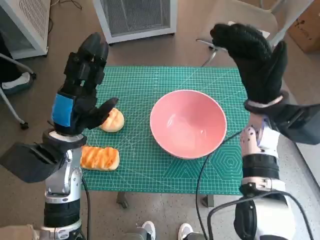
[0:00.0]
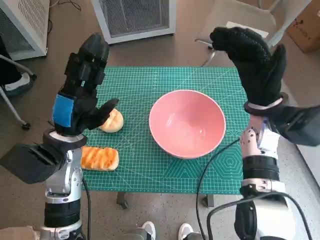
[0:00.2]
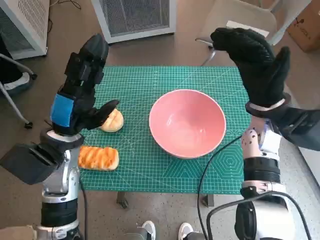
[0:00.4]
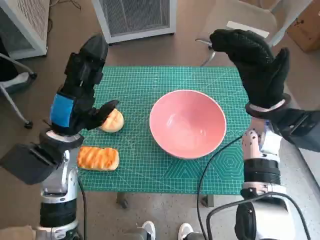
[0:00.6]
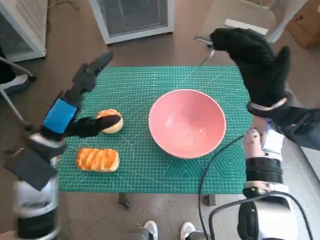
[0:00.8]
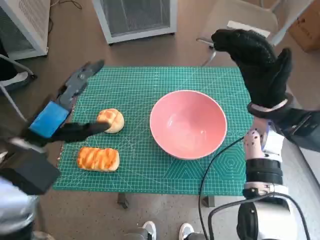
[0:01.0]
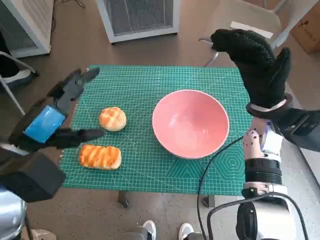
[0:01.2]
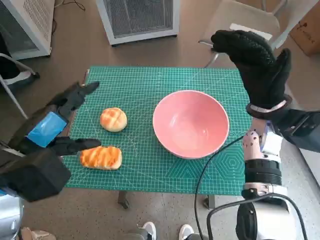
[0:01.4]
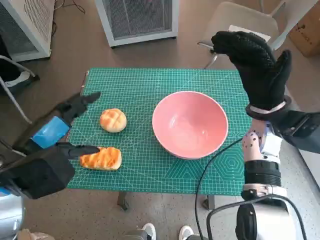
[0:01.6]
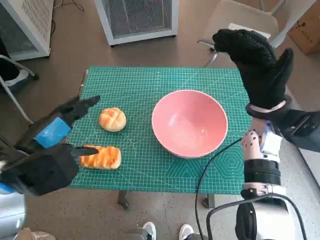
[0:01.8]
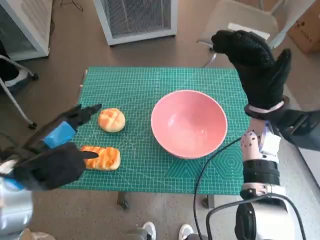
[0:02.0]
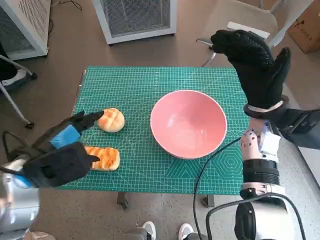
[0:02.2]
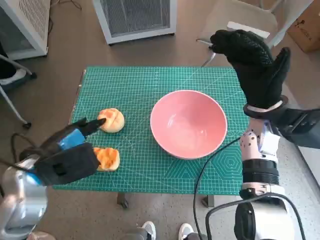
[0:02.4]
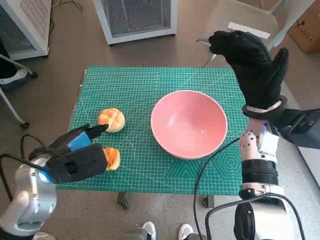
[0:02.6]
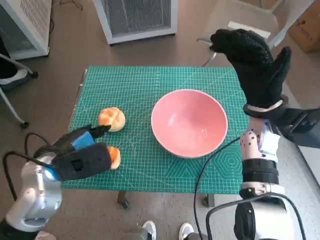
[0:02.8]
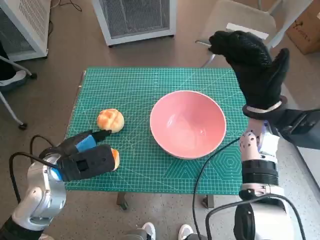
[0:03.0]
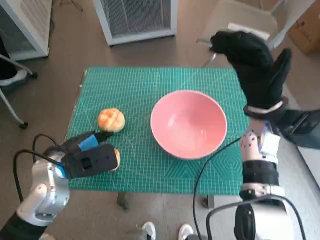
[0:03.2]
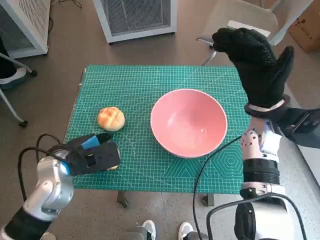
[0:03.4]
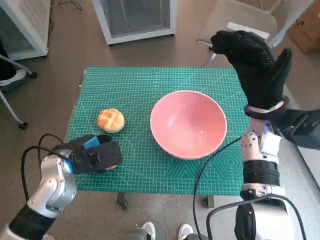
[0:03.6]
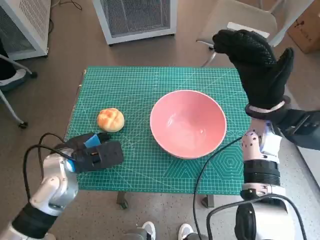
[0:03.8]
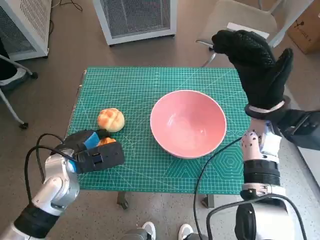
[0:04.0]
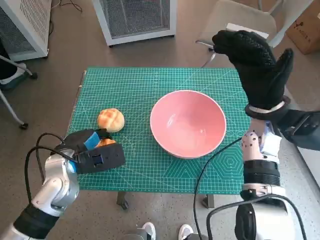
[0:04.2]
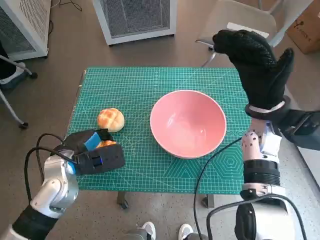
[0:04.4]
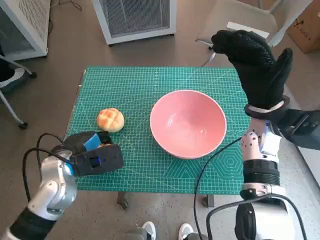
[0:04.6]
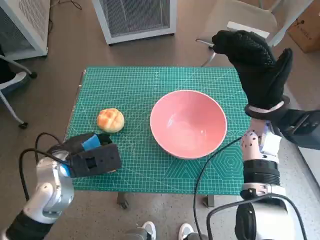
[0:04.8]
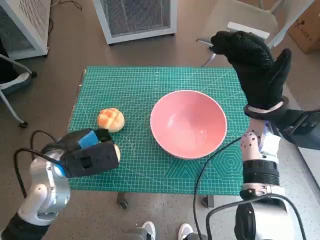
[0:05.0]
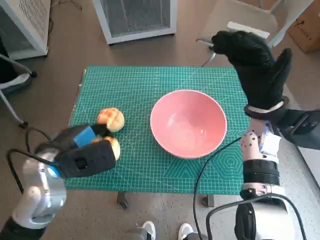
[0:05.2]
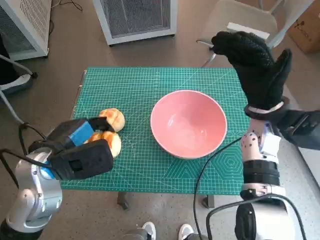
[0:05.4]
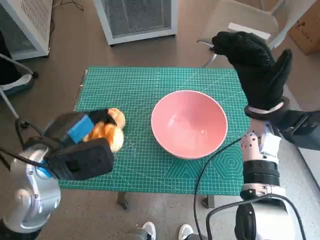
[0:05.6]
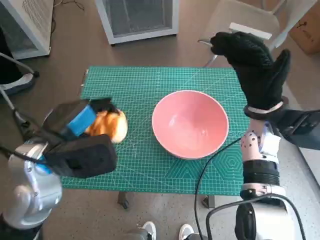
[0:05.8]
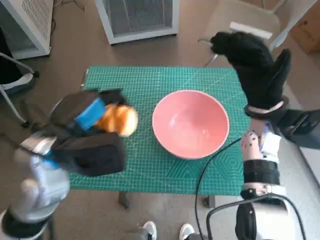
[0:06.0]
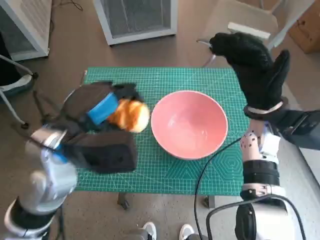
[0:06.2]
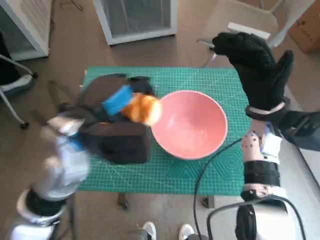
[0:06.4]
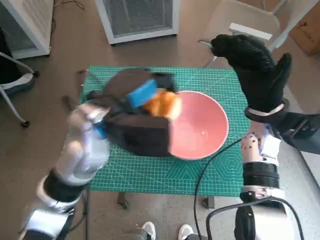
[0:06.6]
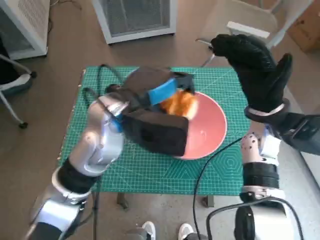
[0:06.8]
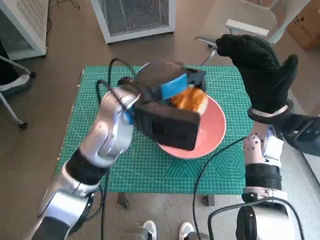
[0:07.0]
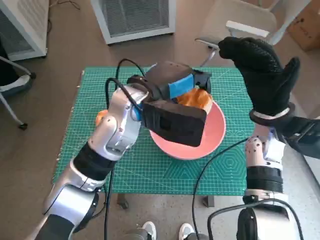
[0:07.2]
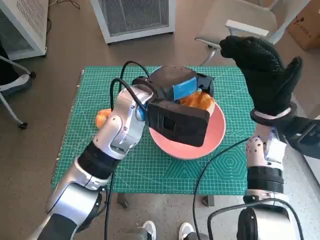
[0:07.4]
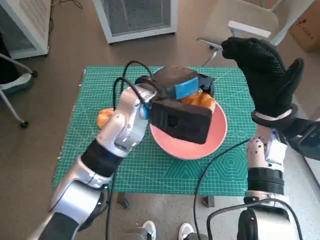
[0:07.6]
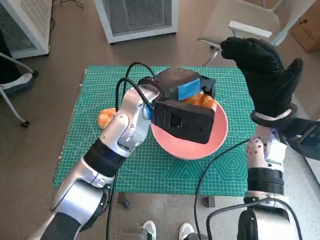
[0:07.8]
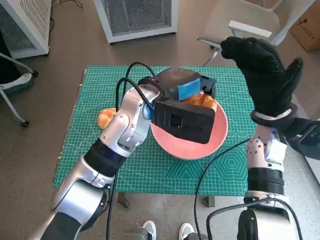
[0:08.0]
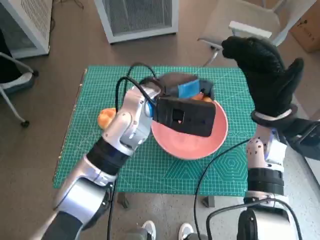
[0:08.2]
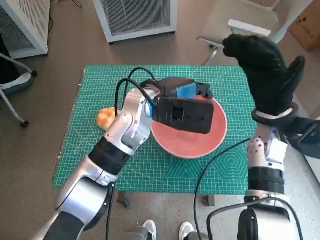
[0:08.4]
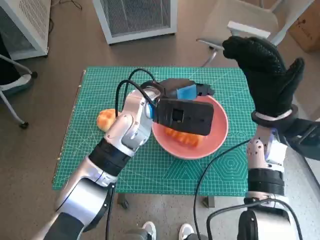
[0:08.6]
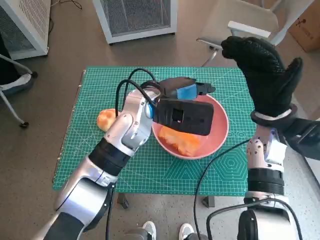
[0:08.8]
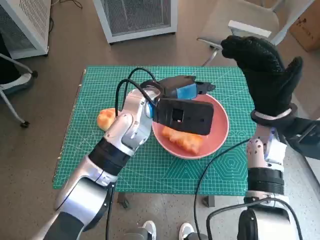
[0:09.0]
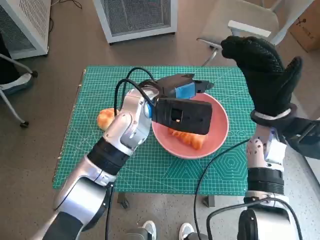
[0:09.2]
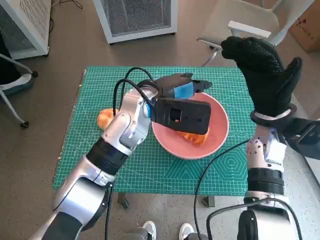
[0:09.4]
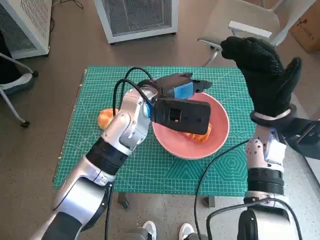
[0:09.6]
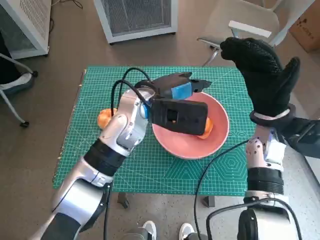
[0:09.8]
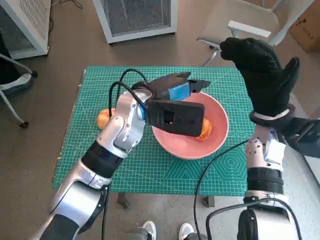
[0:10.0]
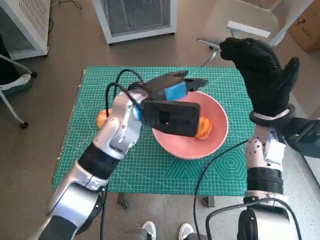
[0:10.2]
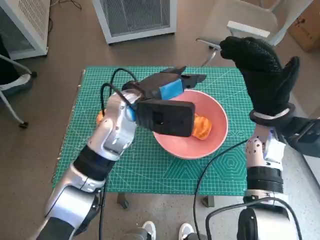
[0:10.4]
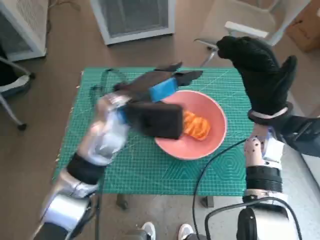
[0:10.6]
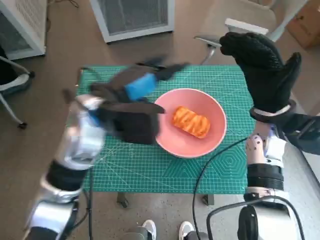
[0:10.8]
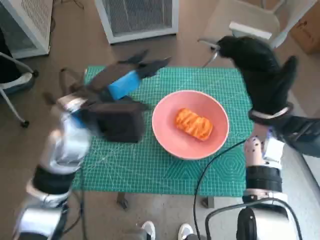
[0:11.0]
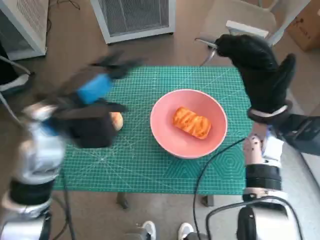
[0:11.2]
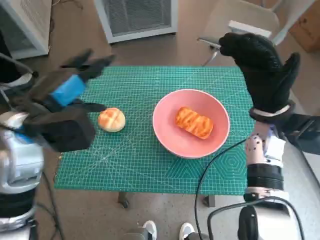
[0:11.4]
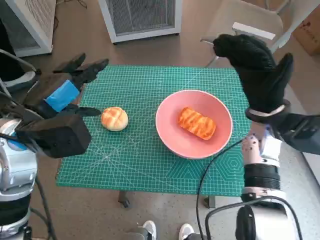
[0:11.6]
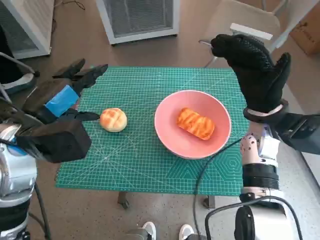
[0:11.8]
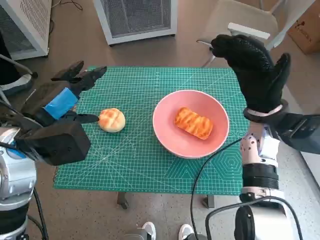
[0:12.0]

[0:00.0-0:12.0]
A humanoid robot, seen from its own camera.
Step, 0:00.0 to 0:04.2: Grasp the long bread with left hand.
Step, 0:04.4 to 0:08.6: Place the long bread in pink bowl with left hand.
0:00.0 to 0:01.6: The left hand shifts some 10 cm backward and upward.
0:01.6 to 0:03.0: The left hand heads downward, covering roughly 10 cm.
0:03.0 to 0:04.4: There are only small adjustments of the hands.
0:04.4 to 0:06.0: The left hand travels upward by some 10 cm.
0:06.0 to 0:07.6: The left hand shifts roughly 15 cm to the right and forward.
0:07.6 to 0:10.4: There are only small adjustments of the hands.
0:10.4 to 0:12.0: The left hand is displaced to the left and backward by roughly 20 cm.

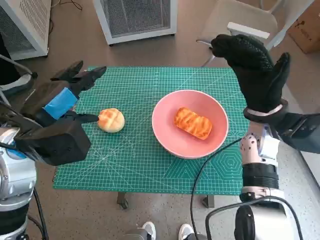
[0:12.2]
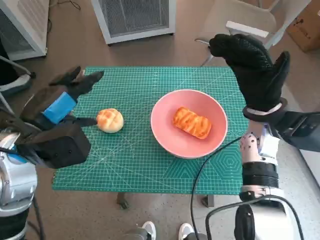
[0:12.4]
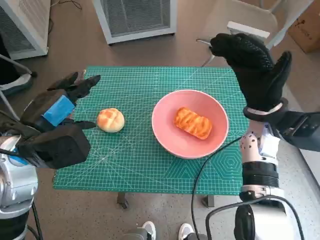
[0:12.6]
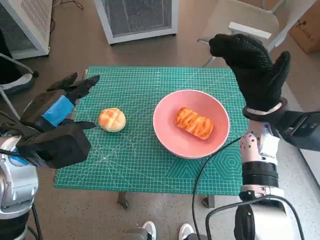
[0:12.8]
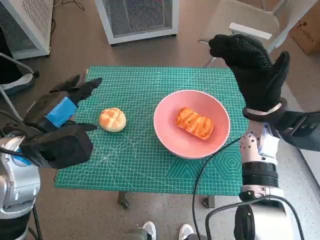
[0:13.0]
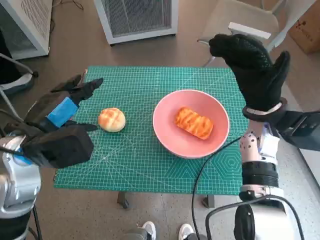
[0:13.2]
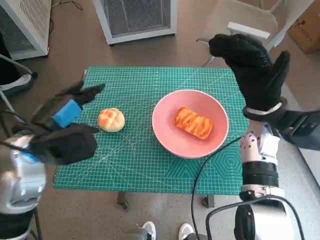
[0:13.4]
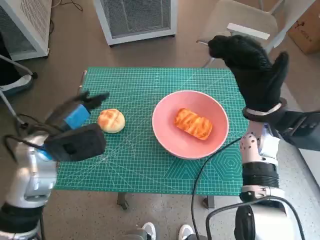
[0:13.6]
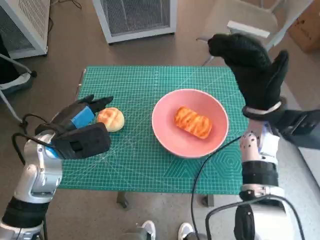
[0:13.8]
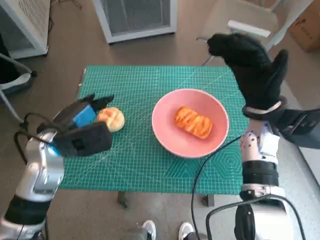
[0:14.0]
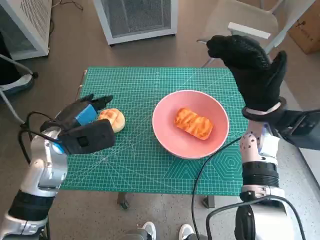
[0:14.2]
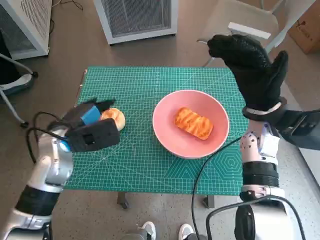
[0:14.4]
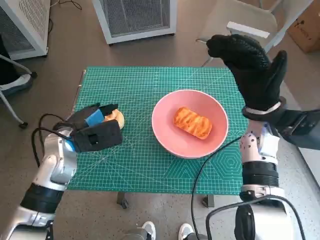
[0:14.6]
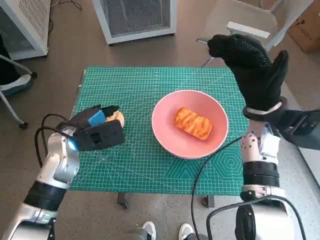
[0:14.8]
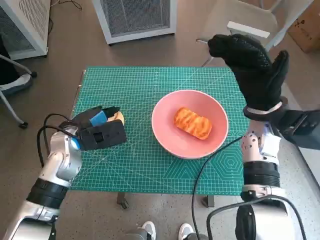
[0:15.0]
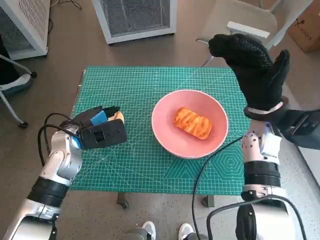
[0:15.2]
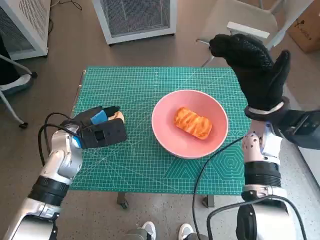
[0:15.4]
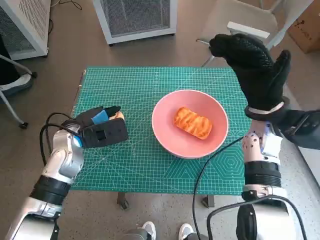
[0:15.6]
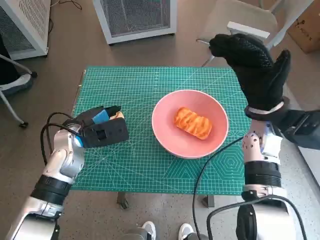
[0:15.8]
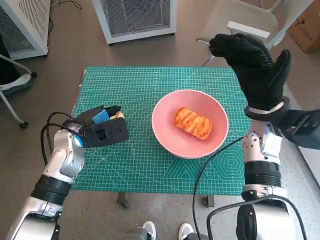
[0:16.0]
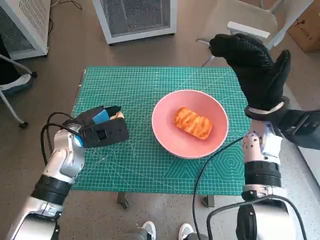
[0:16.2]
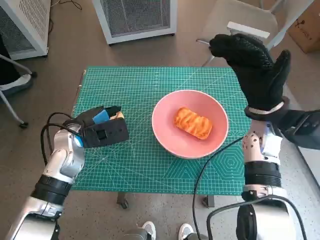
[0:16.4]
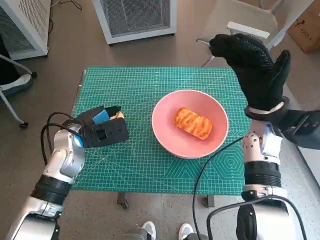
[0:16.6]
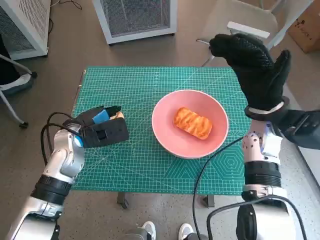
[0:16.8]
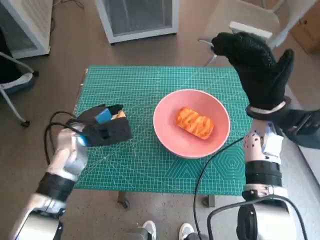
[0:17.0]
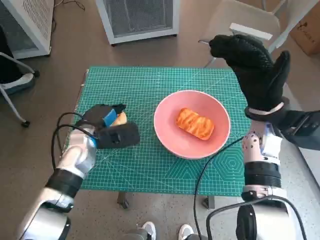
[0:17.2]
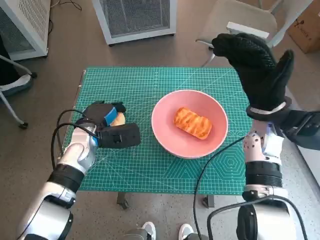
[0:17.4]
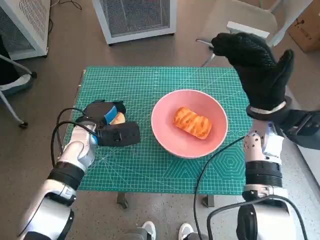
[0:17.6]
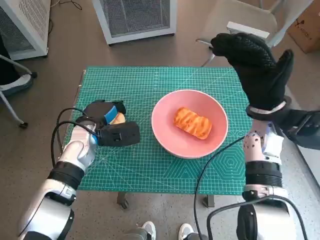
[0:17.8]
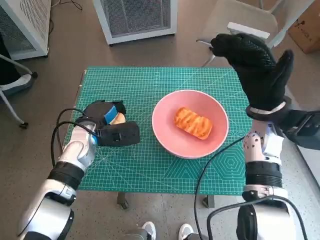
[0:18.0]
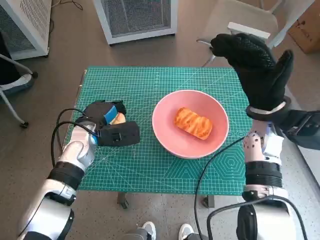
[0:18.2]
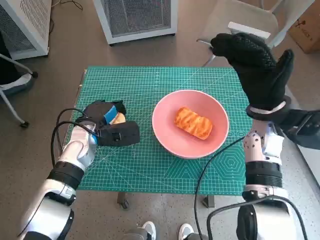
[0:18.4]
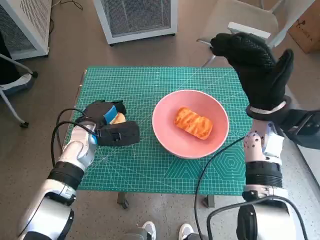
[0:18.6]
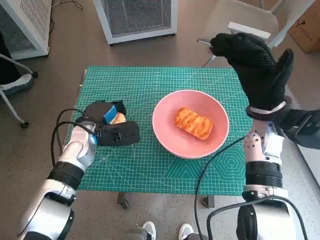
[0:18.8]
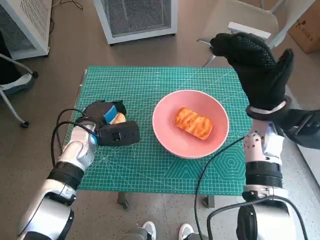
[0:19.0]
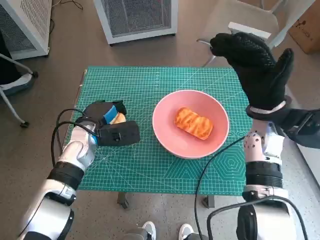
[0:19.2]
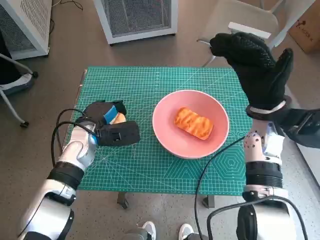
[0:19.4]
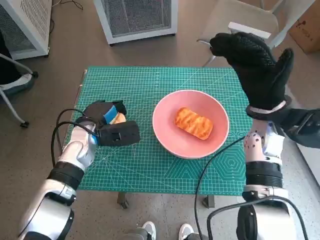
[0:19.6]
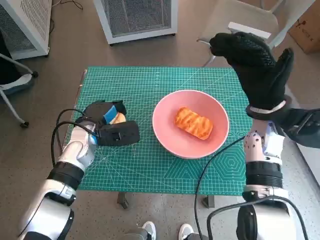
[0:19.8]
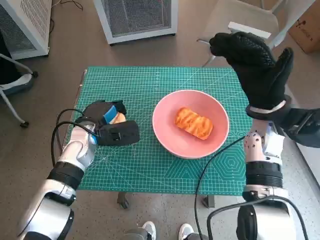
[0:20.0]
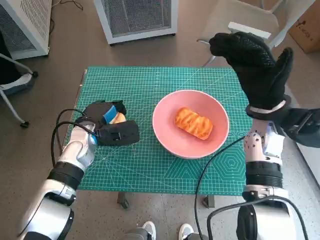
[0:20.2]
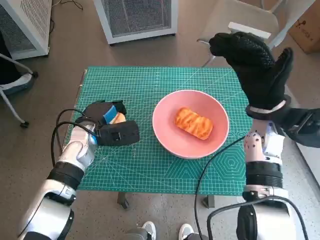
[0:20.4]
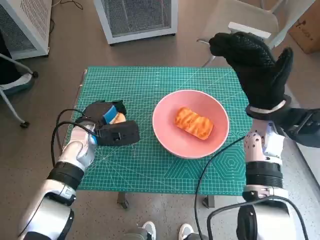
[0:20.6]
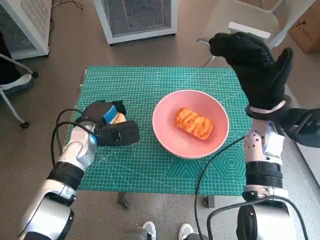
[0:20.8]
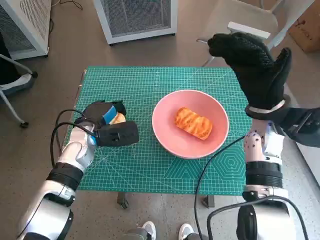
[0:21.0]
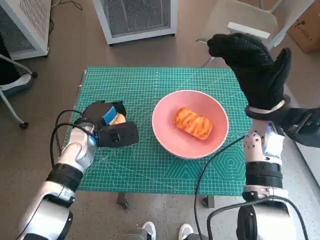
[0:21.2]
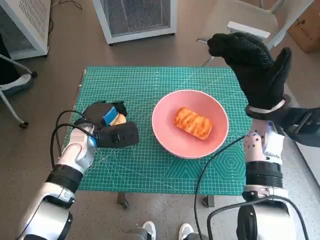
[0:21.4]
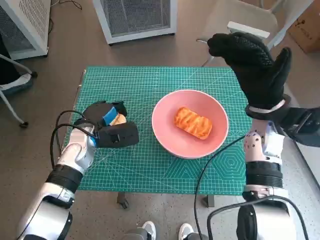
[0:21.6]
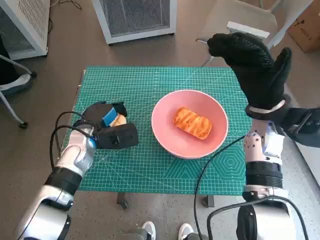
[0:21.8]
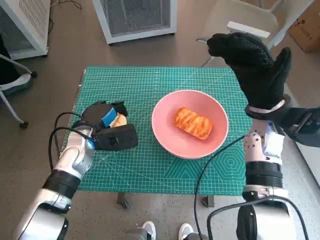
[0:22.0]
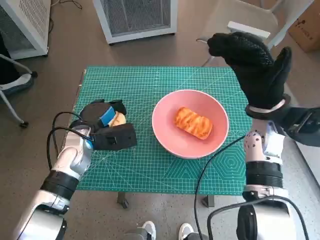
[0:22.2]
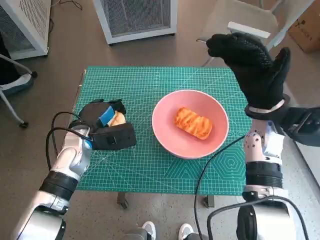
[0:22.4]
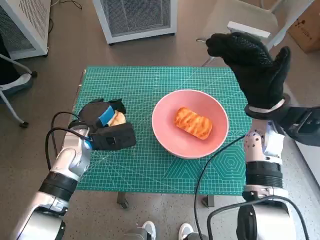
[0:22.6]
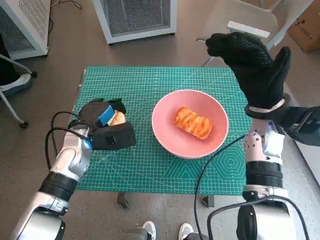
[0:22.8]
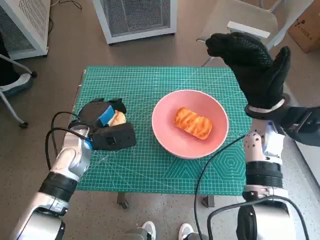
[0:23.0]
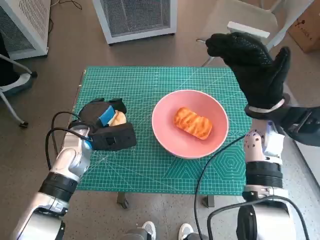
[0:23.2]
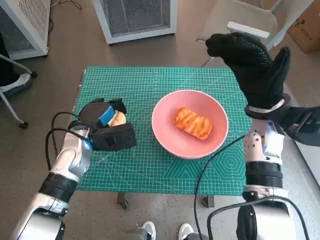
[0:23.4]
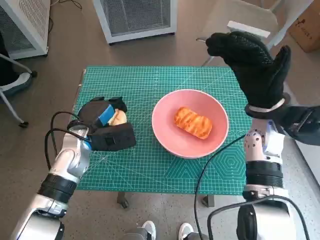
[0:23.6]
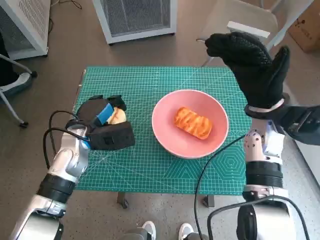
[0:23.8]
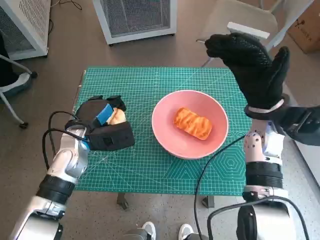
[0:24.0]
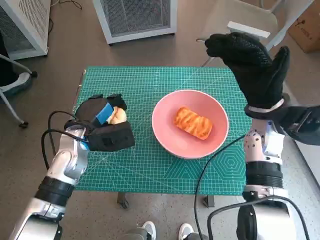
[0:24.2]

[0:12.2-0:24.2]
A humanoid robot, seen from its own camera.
Step, 0:12.2 to 0:20.6: Grasp the round bread with left hand.
0:12.2 to 0:13.8: The left hand shifts about 5 cm downward.
0:13.8 to 0:15.2: The left hand ends up approximately 5 cm from where it was.
0:15.2 to 0:16.6: The two hands keep their place.
0:16.6 to 0:18.2: The hands stay close to where they were, moving slightly.
0:18.2 to 0:21.2: Both hands stay about where they are.
0:21.2 to 0:24.2: The hands stay close to where they were, moving slightly.
